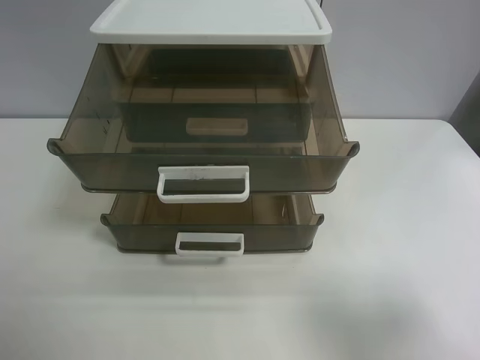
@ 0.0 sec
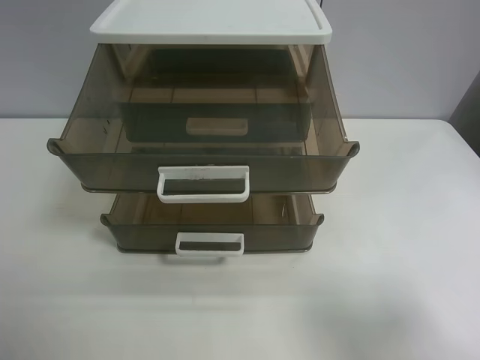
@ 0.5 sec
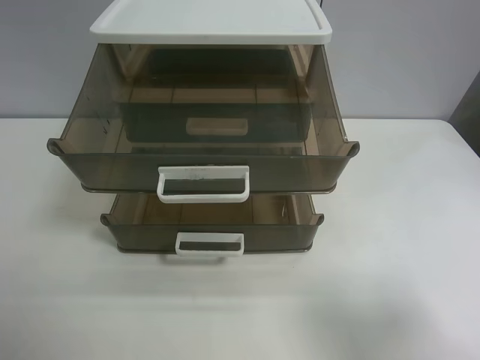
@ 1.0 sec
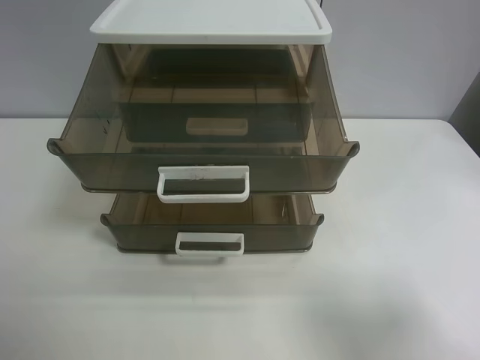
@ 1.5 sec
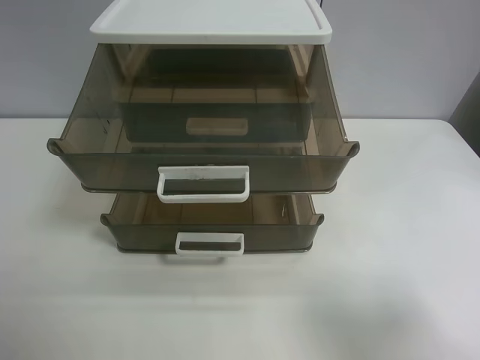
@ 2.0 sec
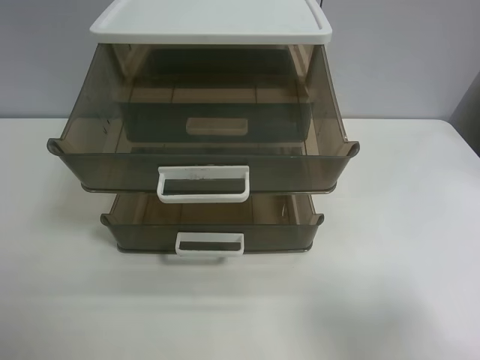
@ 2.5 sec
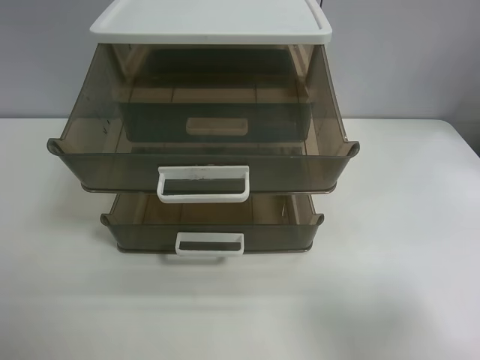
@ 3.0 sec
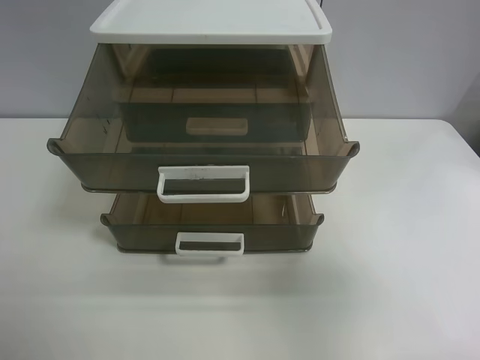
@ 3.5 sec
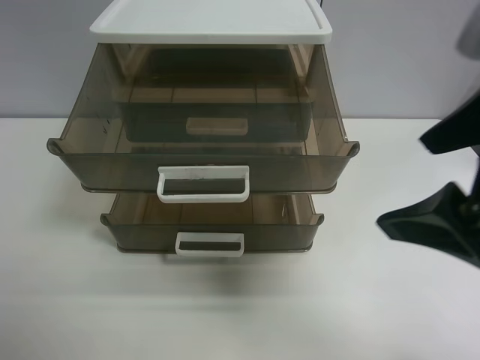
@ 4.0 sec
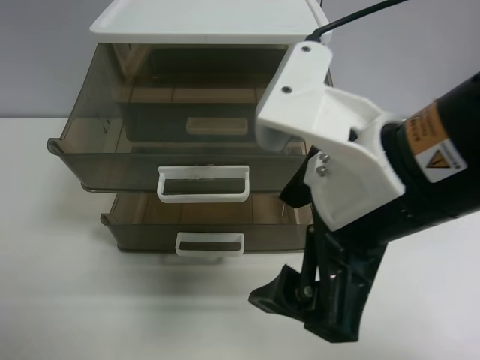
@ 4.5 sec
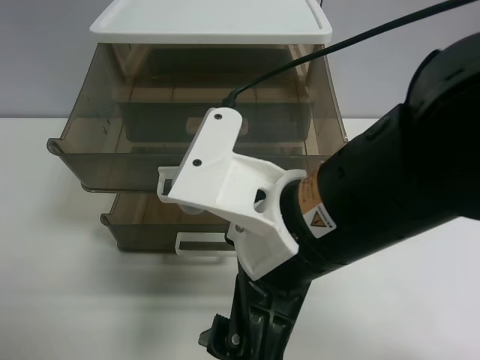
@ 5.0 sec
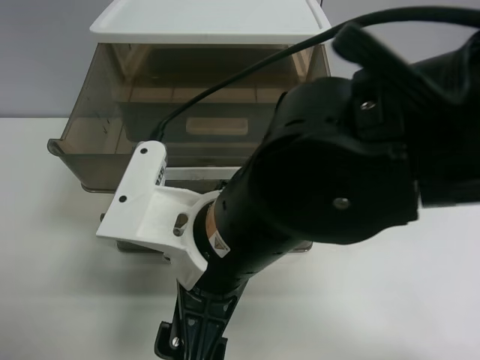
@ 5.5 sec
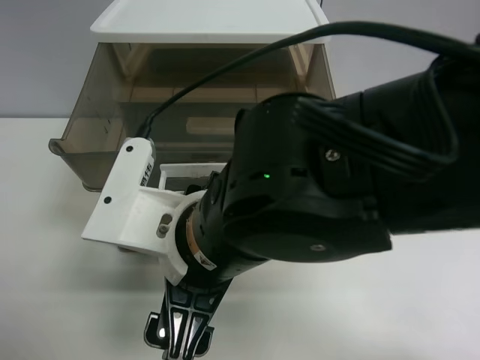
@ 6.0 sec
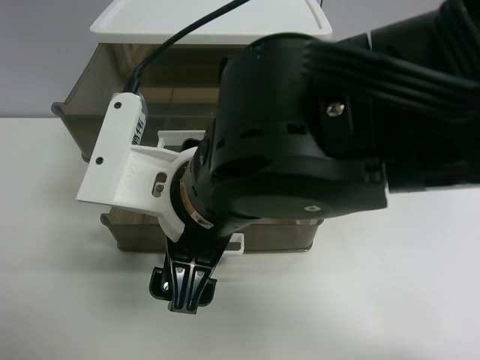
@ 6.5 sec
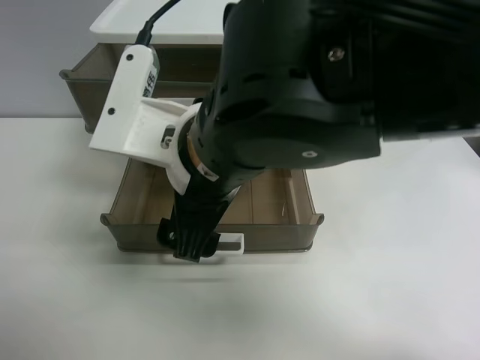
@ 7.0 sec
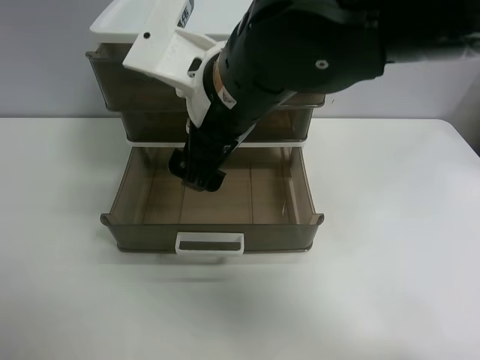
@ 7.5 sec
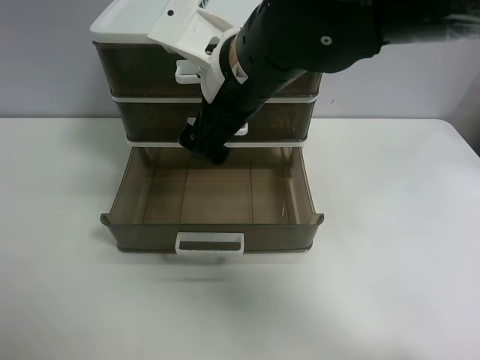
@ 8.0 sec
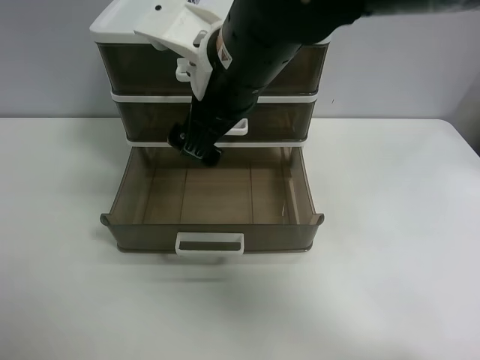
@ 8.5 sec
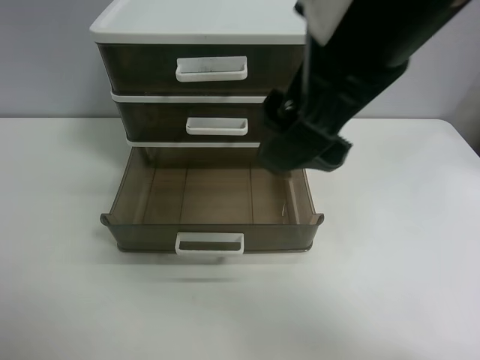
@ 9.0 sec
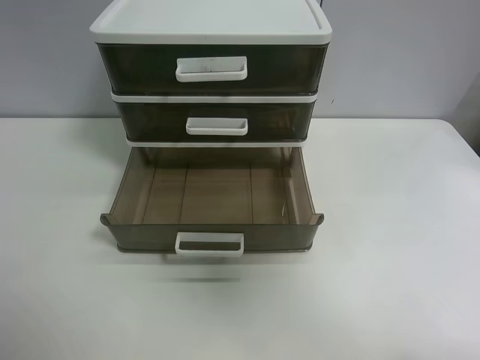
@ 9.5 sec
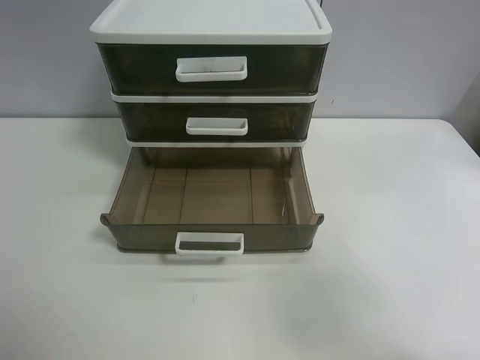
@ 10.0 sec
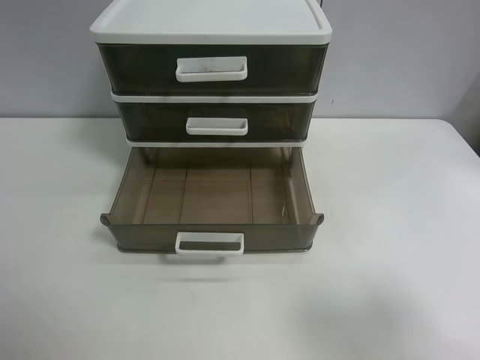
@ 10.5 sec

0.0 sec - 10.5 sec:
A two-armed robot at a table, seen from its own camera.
Task of the whole recording: close the top drawer.
Step, 0.0 sec - 6.0 sec: Use the right gripper to touch the topmost layer of the storage cabinet.
Step, 6.5 sec - 8.5 sec: Push the top drawer closed.
0.0 sec - 2.0 sec: Neither gripper changes place.
2.0 sec - 4.0 sec: The right gripper heads to the left, forward and upward, covering approximately 15 cm.
4.0 sec - 6.5 sec: The right gripper moves to the left and downward, some 20 cm.
6.5 sec - 8.5 sec: The right gripper shifts approximately 10 cm forward and upward.
8.5 sec - 10.5 sec: The right gripper is displaced to the right and backward by approximately 40 cm.
